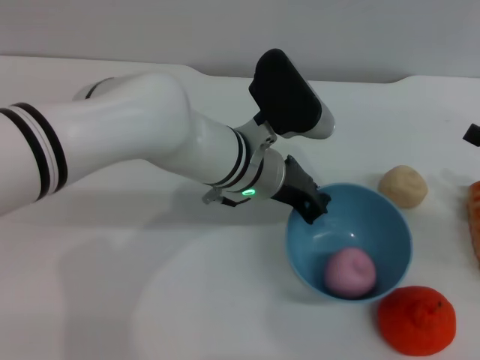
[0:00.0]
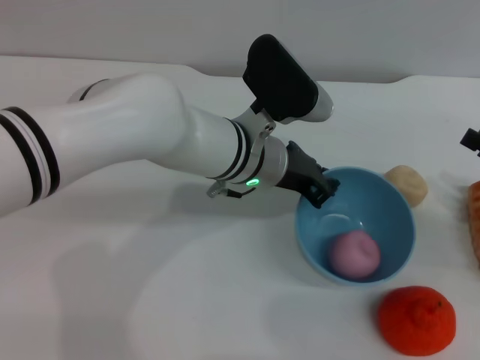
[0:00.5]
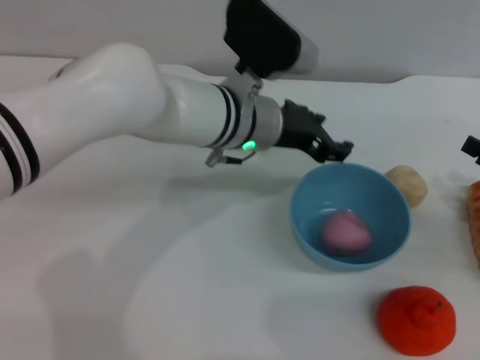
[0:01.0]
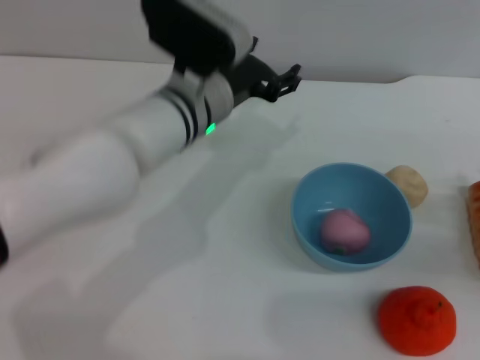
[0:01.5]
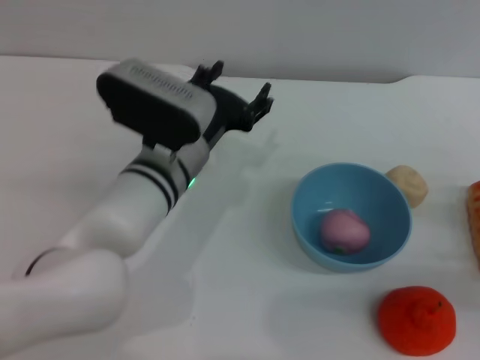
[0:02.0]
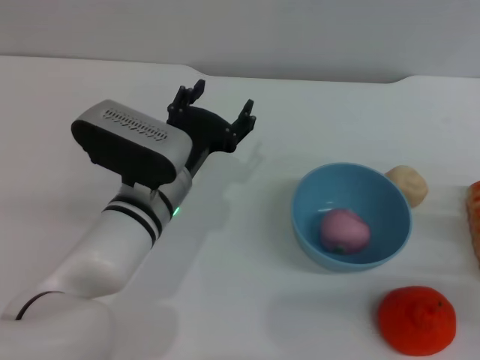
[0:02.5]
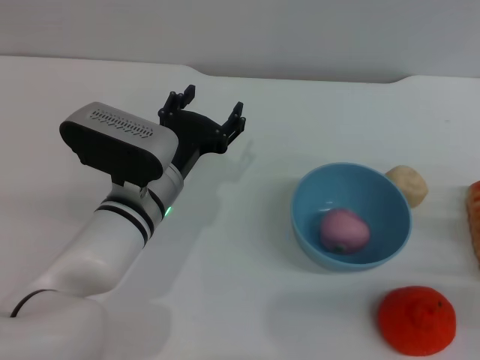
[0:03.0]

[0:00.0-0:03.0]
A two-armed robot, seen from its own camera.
Task of the whole recording: put the peach into the blue bowl and pour it out repeatedly.
Step, 0:00.0 to 0:01.0: Place the bowl on the table.
0:00.0 to 0:01.5: The left gripper shifts by roughly 5 cm, and opens.
0:01.5 to 0:03.0: The left gripper heads backward and downward, covering roughly 10 cm. The right gripper is displaced backward by approximately 5 cm.

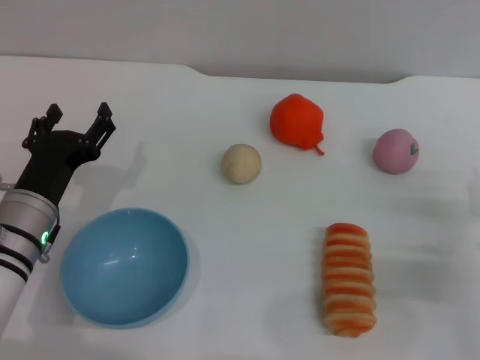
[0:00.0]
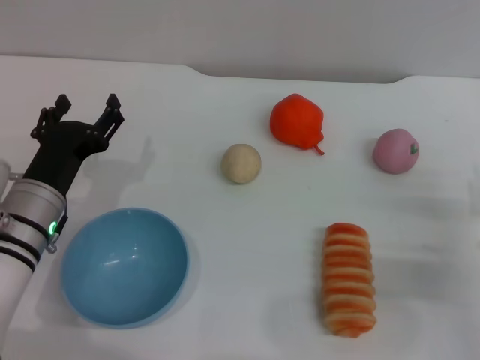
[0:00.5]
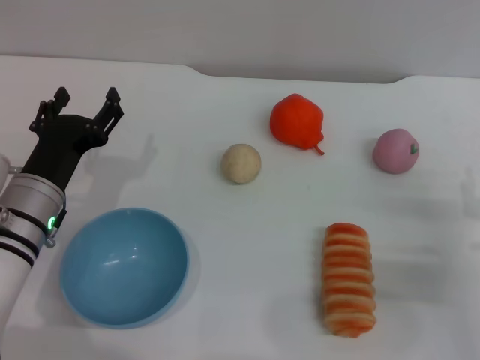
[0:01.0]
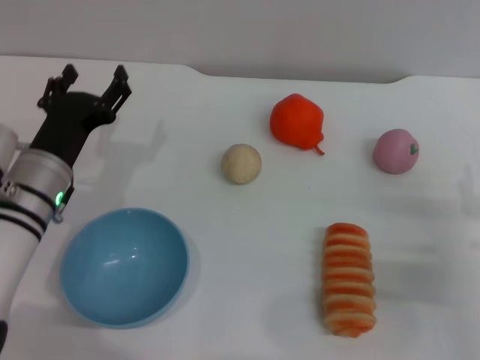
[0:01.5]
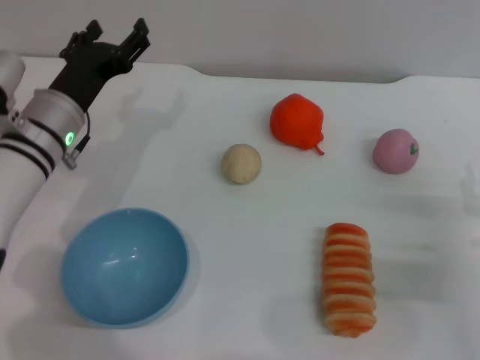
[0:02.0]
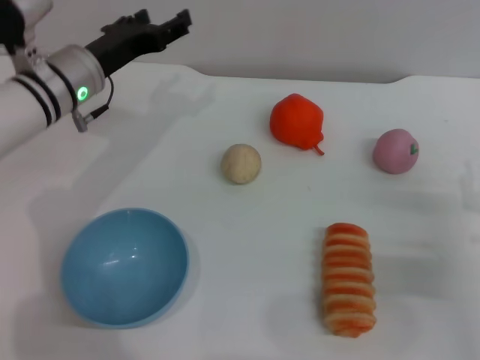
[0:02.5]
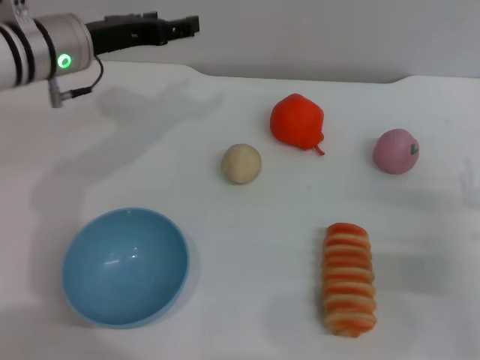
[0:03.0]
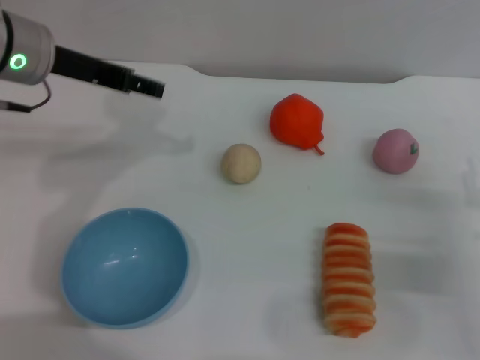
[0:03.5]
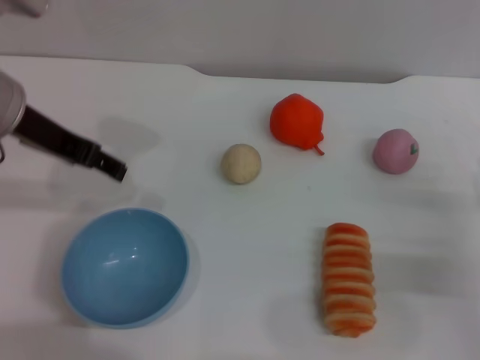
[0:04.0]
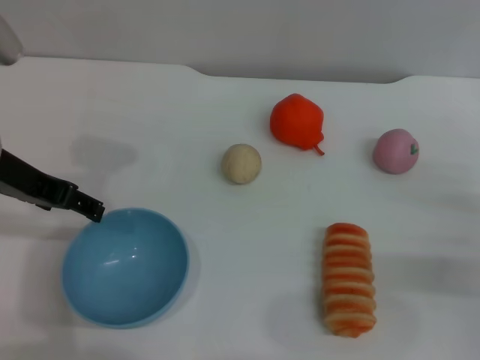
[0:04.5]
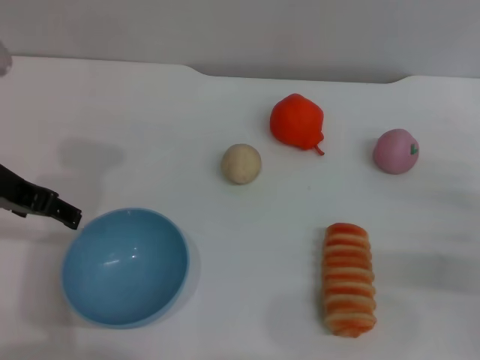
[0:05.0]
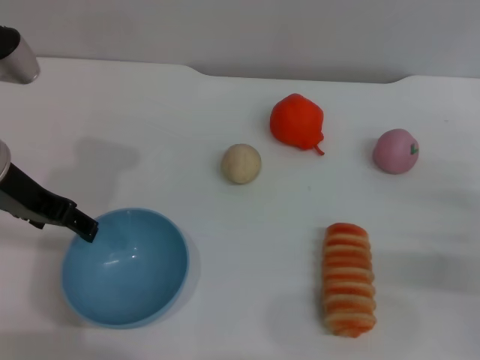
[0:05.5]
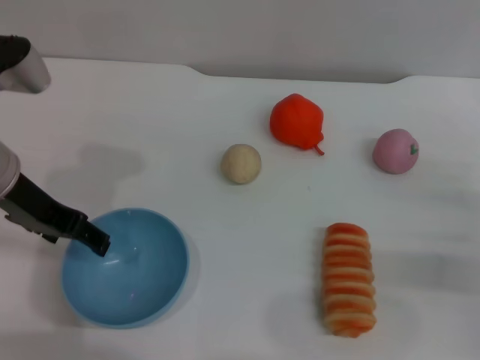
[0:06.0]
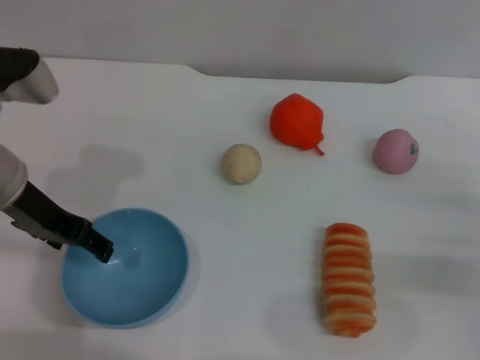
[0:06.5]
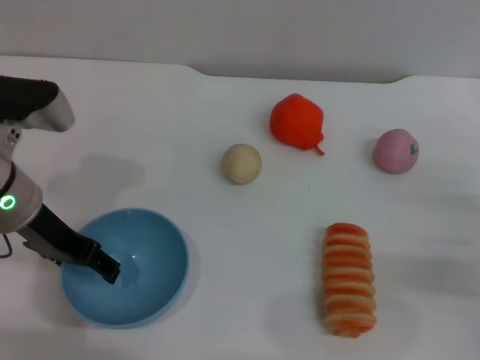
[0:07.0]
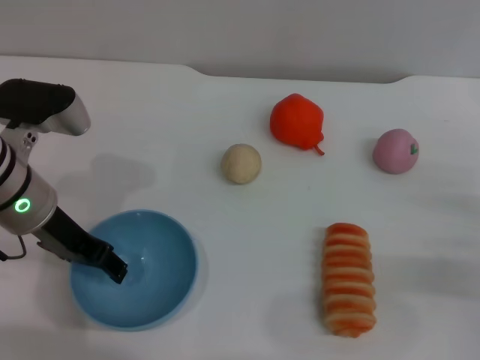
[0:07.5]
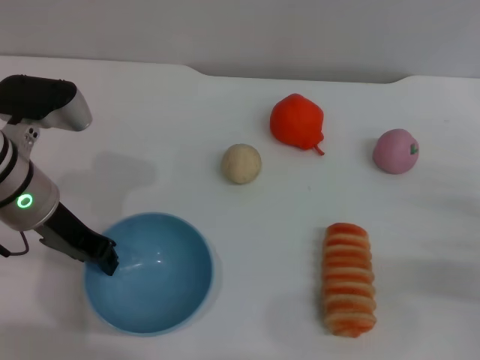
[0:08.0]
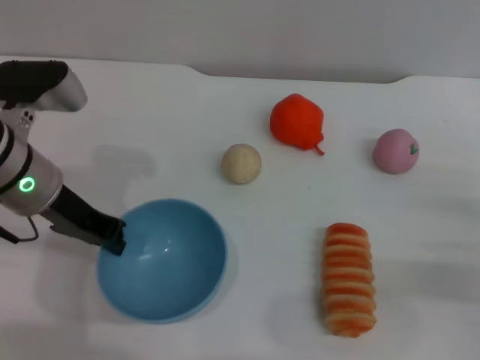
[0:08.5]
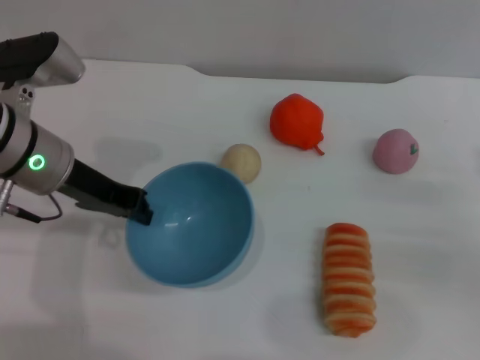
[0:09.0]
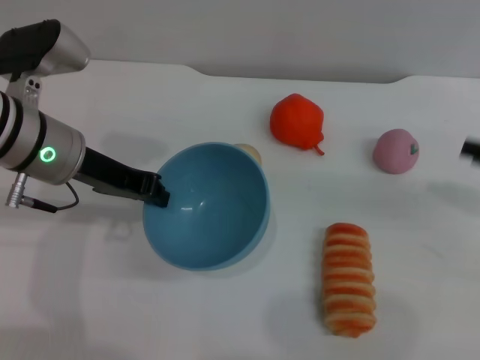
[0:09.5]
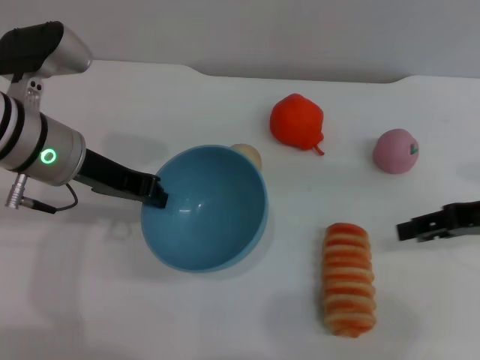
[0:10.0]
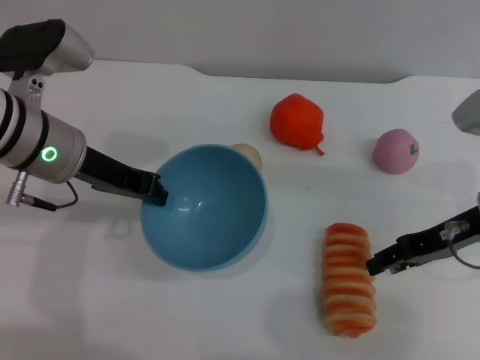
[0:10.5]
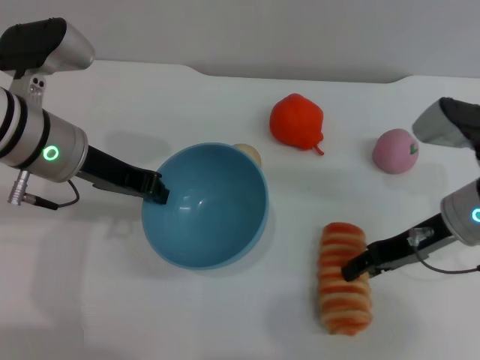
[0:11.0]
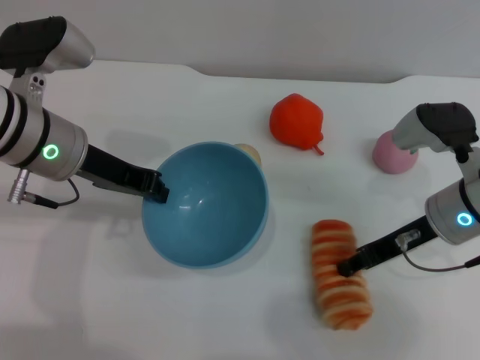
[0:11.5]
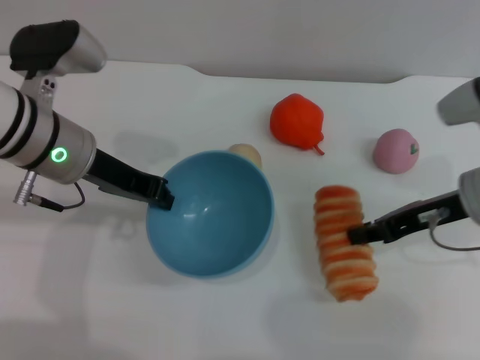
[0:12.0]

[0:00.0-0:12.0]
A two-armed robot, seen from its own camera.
Task of the whole recording: put the bread into the blue bowl and pour it out repeatedly.
Step, 0:00.0 to 0:09.0: Pick up the bowl with the left gripper.
Step, 0:09.5 to 0:12.0: Pick up the bread with the right gripper.
0:00.0 to 0:02.0: The left gripper is displaced forward and upward by approximately 10 cm.
0:02.0 to 0:04.0: The left gripper travels upward by some 15 cm.
0:04.0 to 0:06.0: The grippers stay close to where they were, moving slightly.
0:06.0 to 0:08.0: The left gripper closes.
0:08.0 to 0:10.0: The right gripper travels upward and forward by about 15 cm.
0:10.0 to 0:12.0: The right gripper goes roughly 5 cm to the left, and closes.

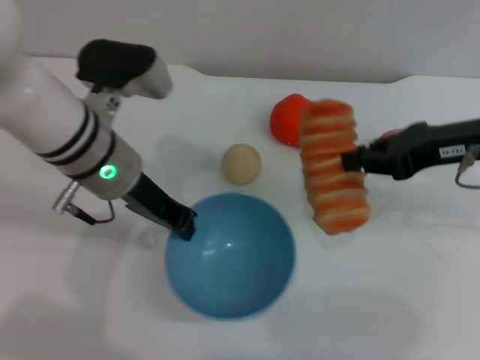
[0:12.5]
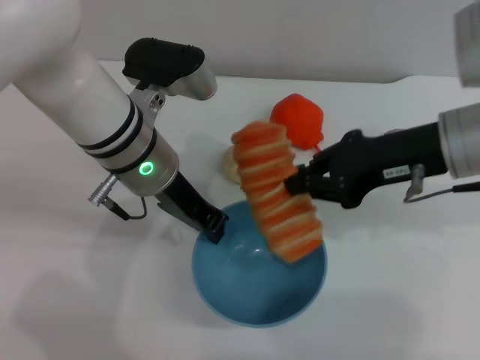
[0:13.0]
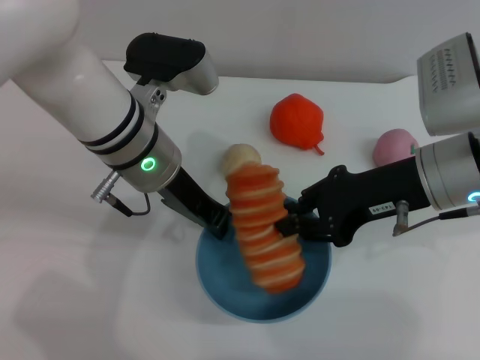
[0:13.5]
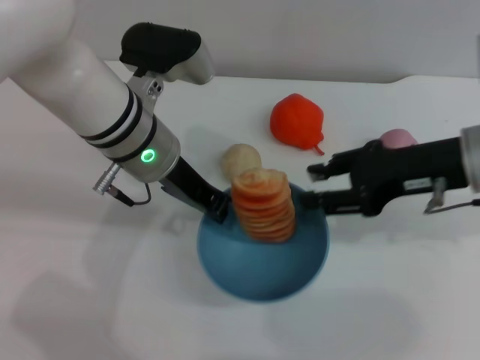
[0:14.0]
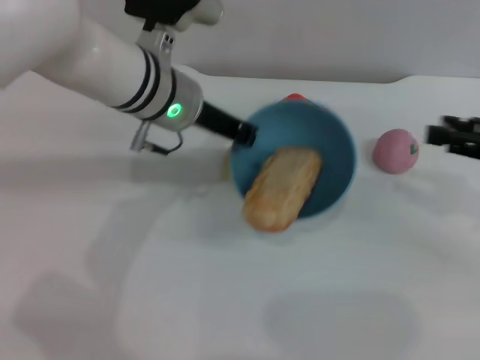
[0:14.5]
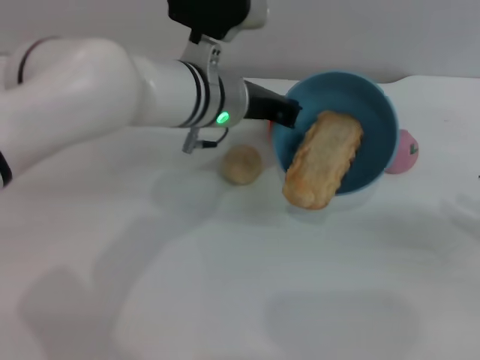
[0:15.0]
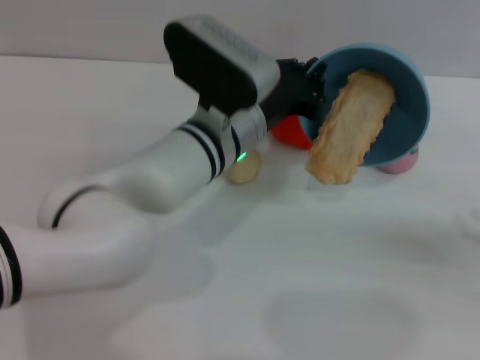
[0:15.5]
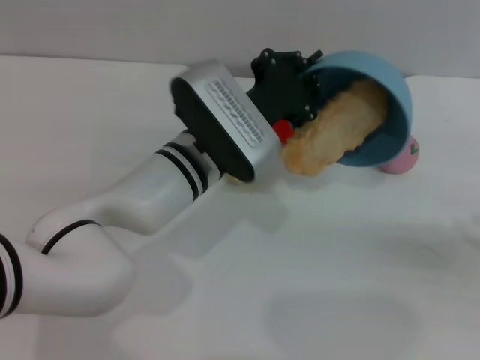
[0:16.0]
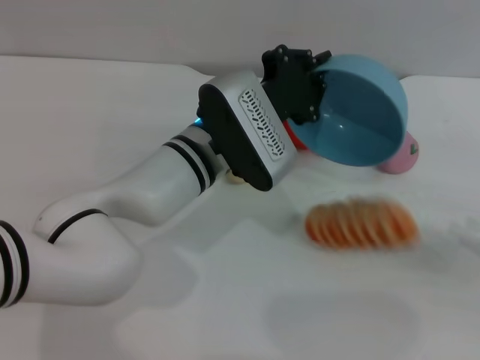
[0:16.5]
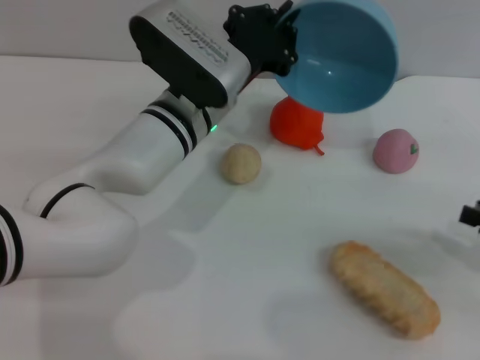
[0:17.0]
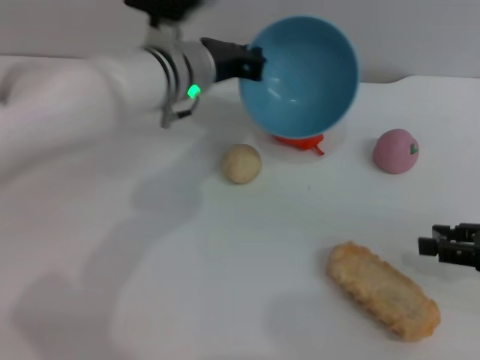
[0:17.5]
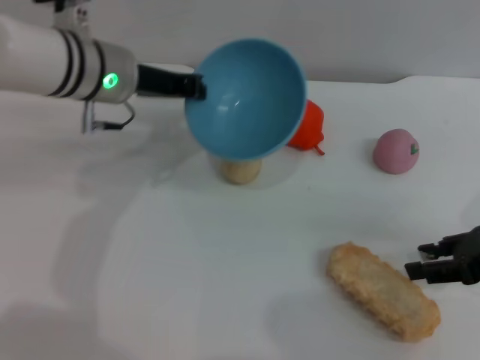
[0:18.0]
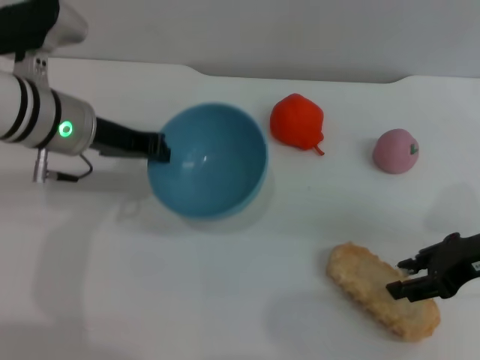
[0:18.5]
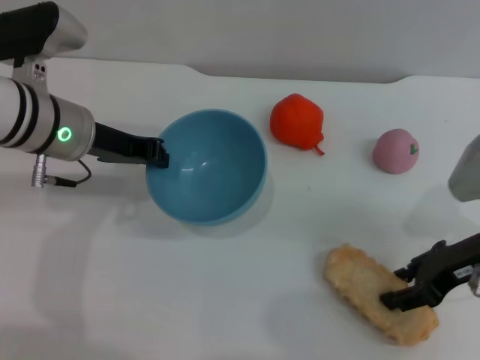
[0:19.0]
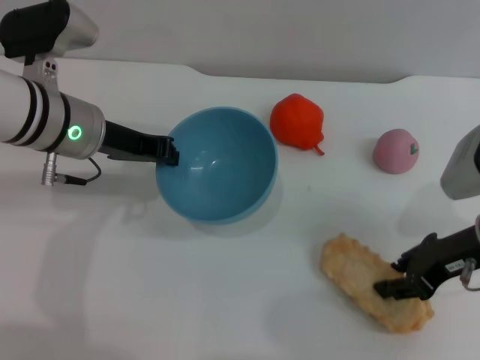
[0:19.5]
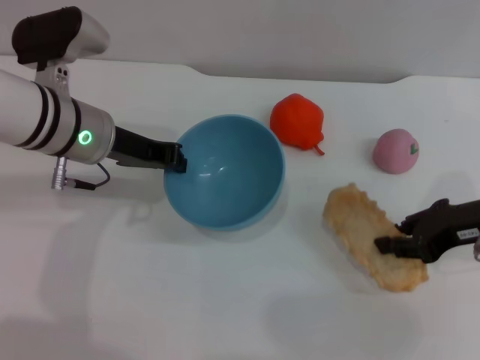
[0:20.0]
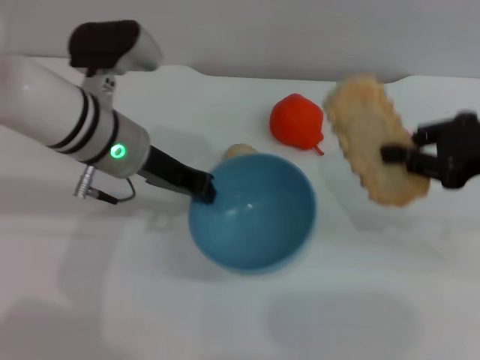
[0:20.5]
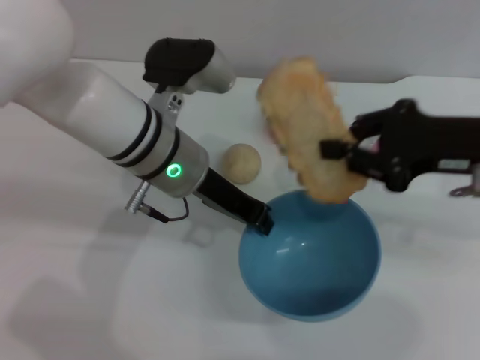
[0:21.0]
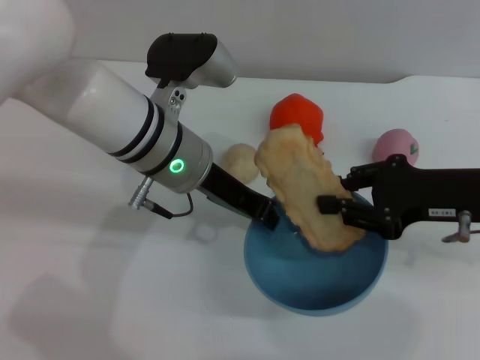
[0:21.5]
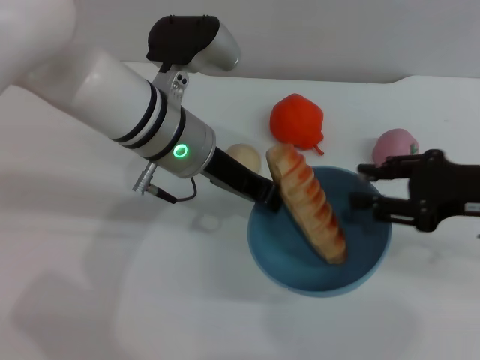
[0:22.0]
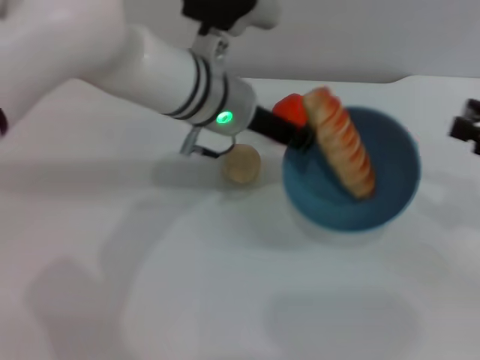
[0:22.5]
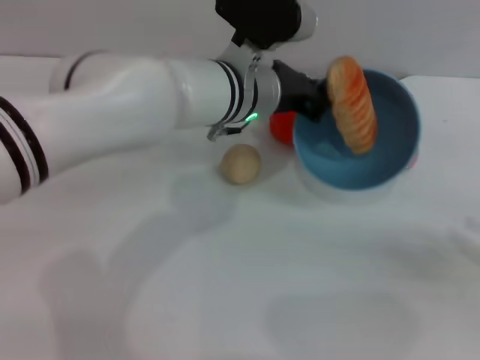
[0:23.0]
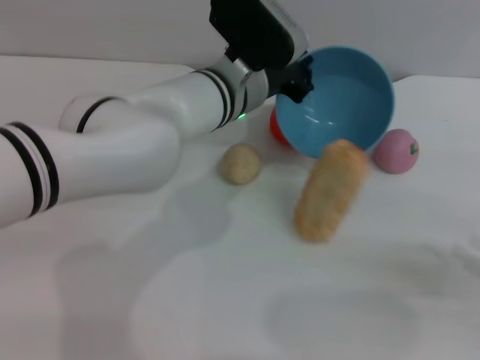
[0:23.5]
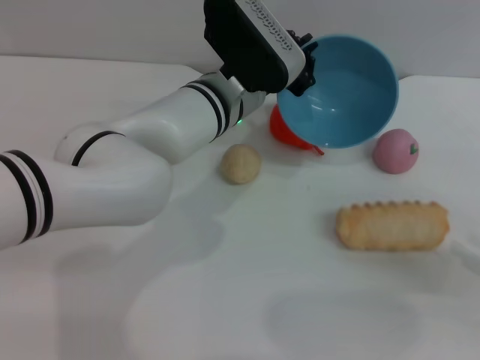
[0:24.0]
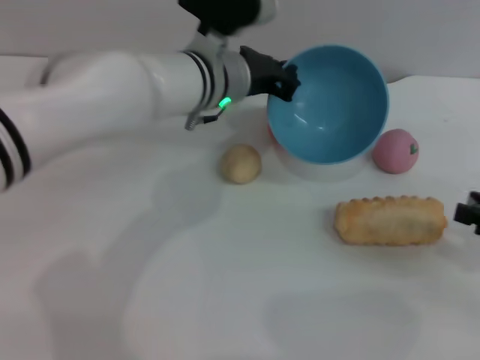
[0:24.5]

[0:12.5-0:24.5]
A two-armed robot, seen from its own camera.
Task of the whole recording: put the bread into the blue bowl and pour it out repeatedly.
Step, 0:12.5 to 0:14.0: Place the bread into the bowl.
Step, 0:14.5 to 0:16.5: Pour the bread out of the bowl.
Step, 0:17.0 to 0:20.0: Pick up the bread with the right gripper.
Step, 0:20.5 to 0:22.0: Place the bread into the bowl.
Step, 0:22.5 to 0:23.5: Pour the bread out of the bowl.
0:12.5 to 0:14.5: The left gripper changes place by roughly 5 cm, while the right gripper shifts about 10 cm to the right, and opens up.
0:14.5 to 0:16.5: The left gripper shifts about 5 cm downward. Meanwhile the right gripper moves backward, downward and to the right, approximately 10 cm.
0:16.5 to 0:18.5: The right gripper shifts some 15 cm to the left and forward. Meanwhile the left gripper is displaced to the left by some 15 cm.
0:18.5 to 0:20.5: The left gripper goes some 5 cm to the right; the right gripper is displaced upward by approximately 5 cm, and closes up.
0:20.5 to 0:22.5: The left gripper heads to the right, covering about 10 cm, while the right gripper heads to the right, covering approximately 5 cm, and opens up.
0:22.5 to 0:24.5: The right gripper travels downward by roughly 5 cm.
